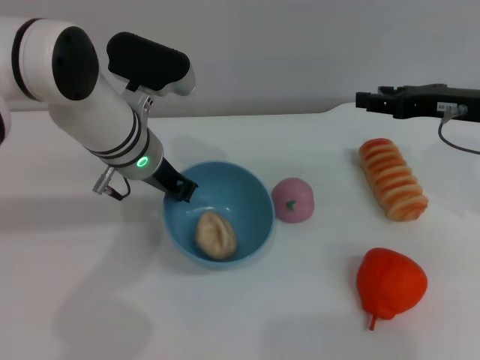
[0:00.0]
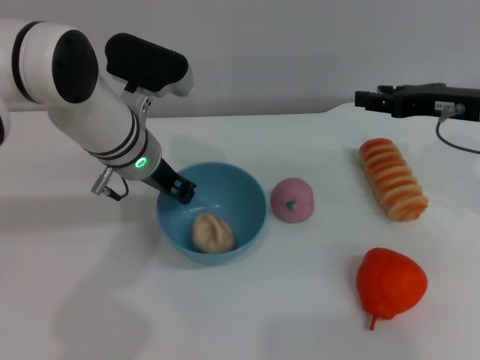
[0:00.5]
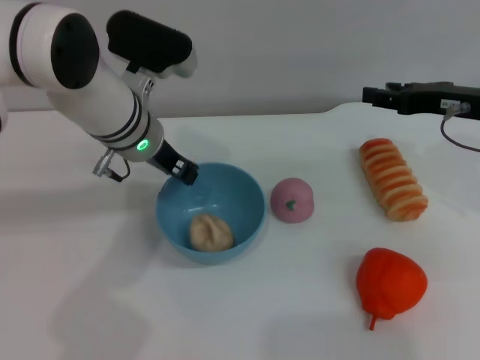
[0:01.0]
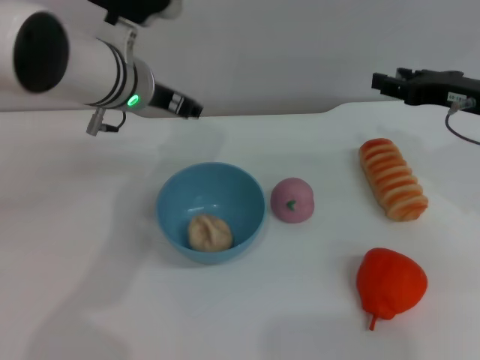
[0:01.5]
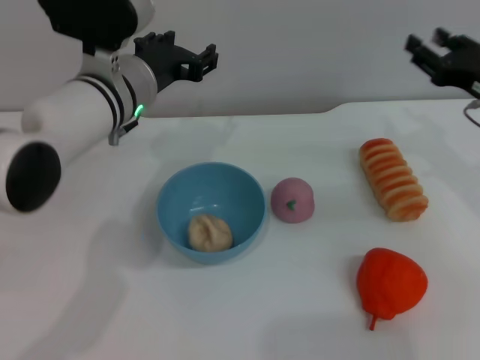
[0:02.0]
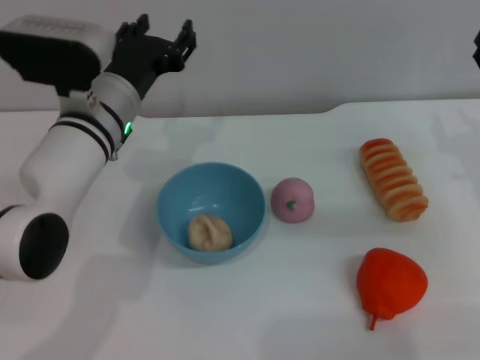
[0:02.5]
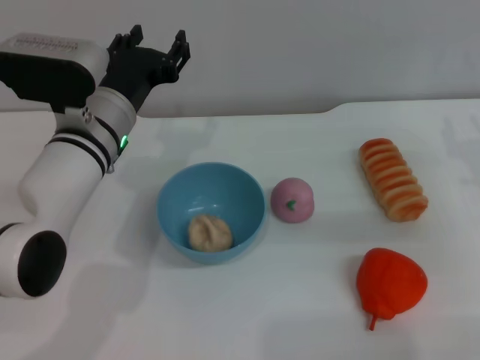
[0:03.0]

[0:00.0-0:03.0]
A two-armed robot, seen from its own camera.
Task of the whole recording: put the egg yolk pastry into the blue bowl and pour it out repeatedly.
0:00.0 to 0:01.5: The left gripper travels upward by about 5 cm, and opens.
0:01.5 to 0:03.0: Both grippers move downward, about 5 cm.
